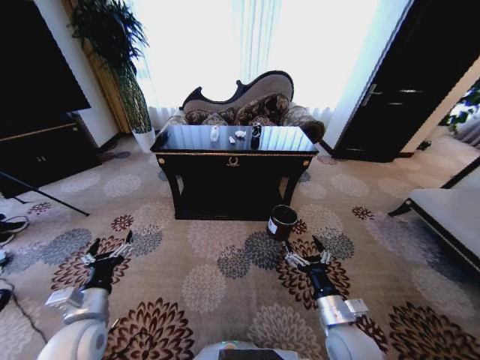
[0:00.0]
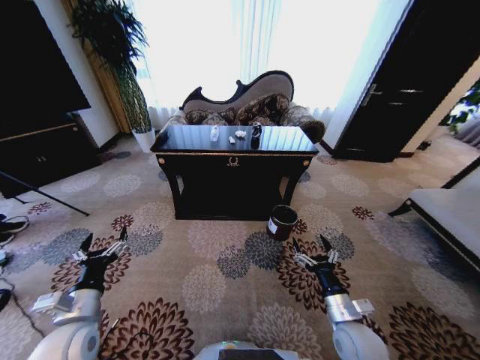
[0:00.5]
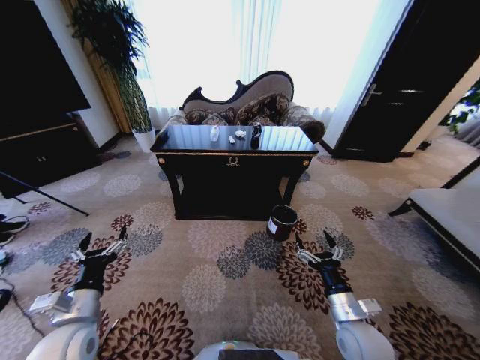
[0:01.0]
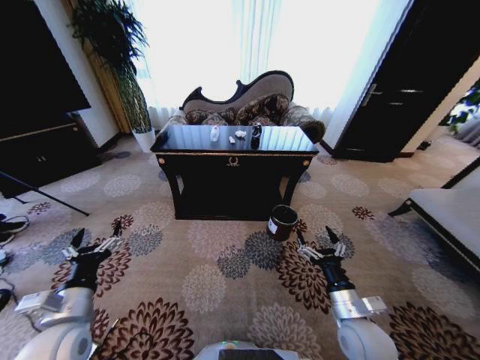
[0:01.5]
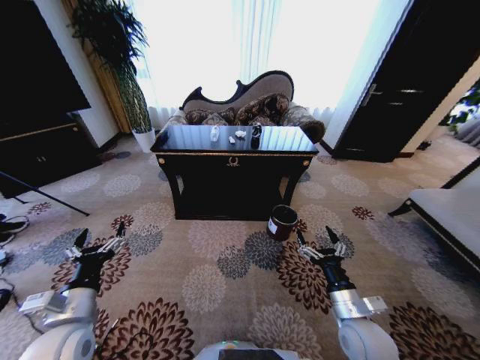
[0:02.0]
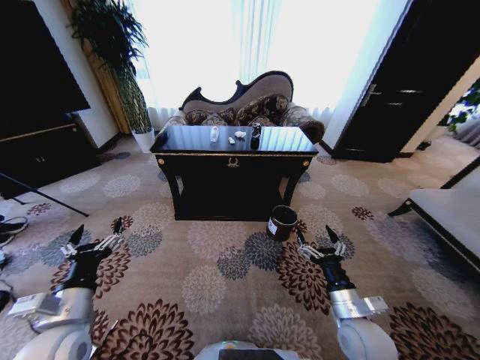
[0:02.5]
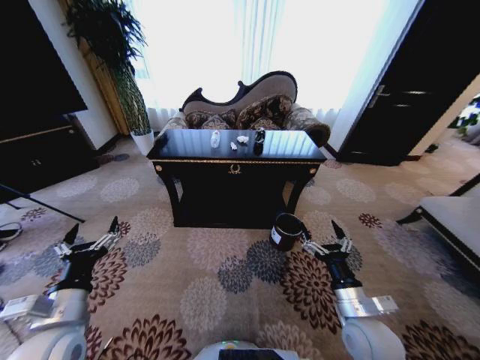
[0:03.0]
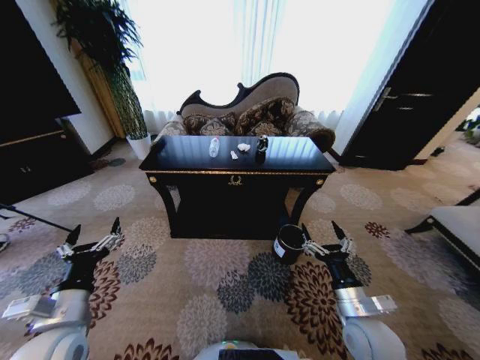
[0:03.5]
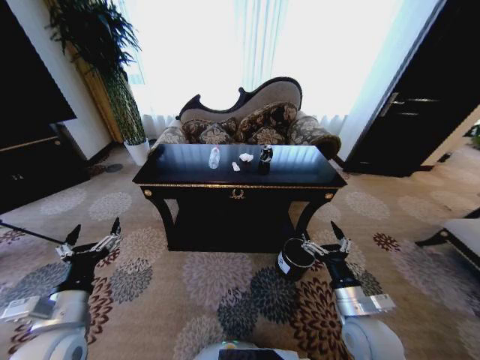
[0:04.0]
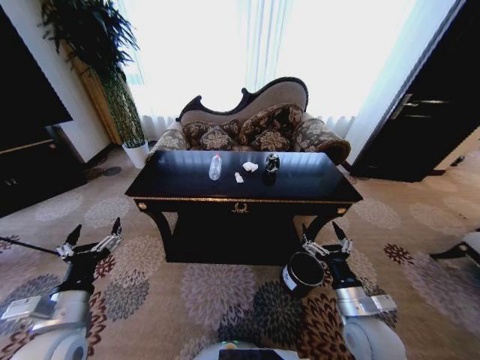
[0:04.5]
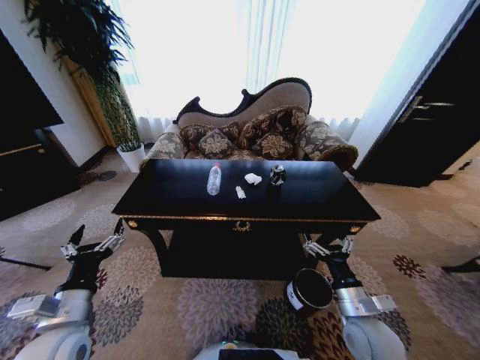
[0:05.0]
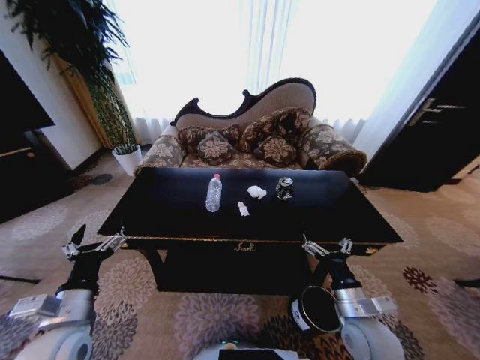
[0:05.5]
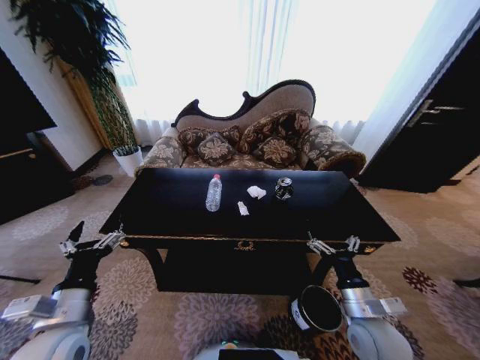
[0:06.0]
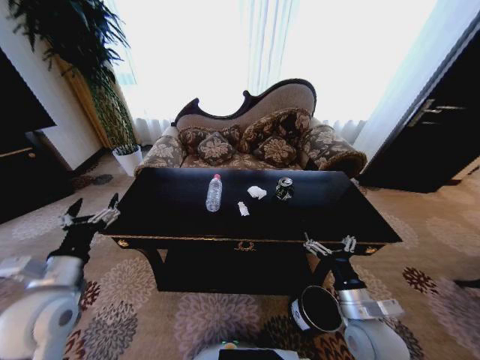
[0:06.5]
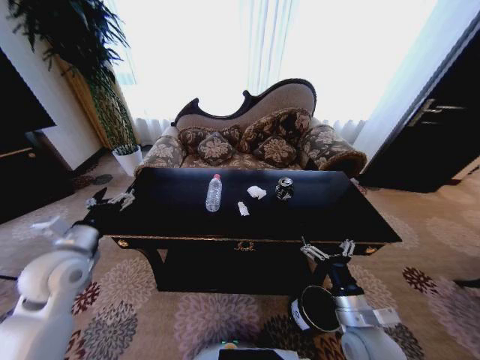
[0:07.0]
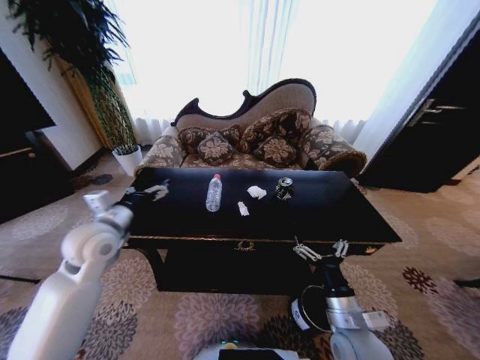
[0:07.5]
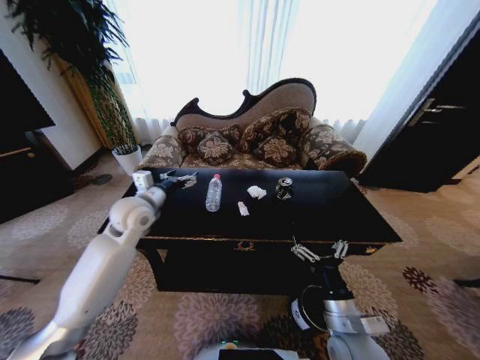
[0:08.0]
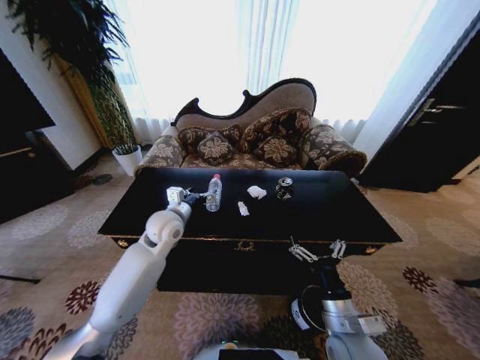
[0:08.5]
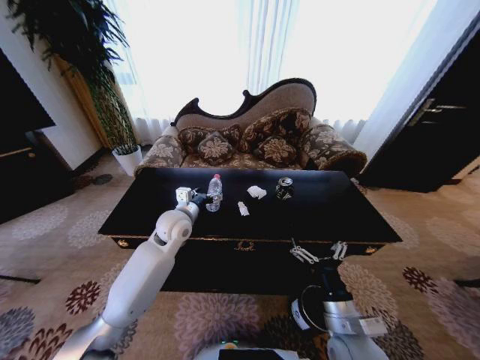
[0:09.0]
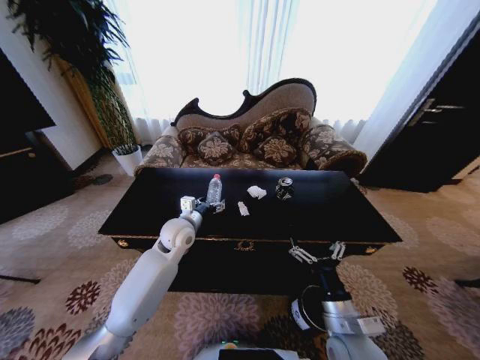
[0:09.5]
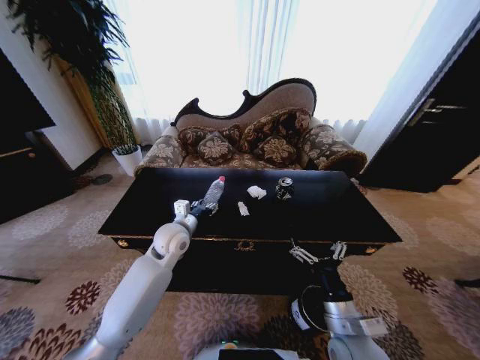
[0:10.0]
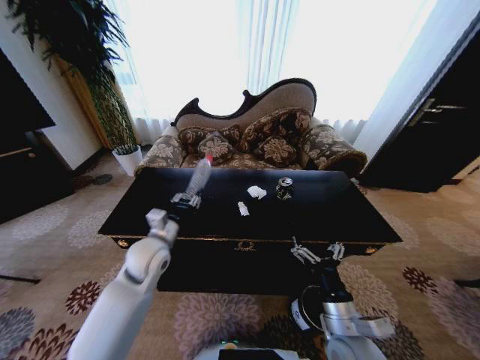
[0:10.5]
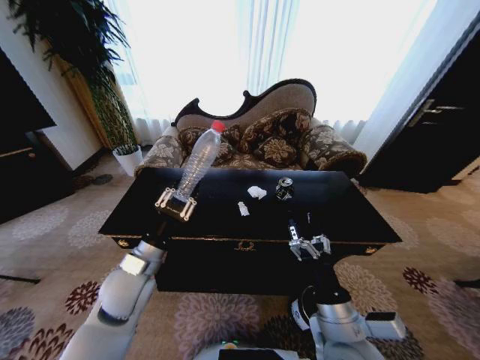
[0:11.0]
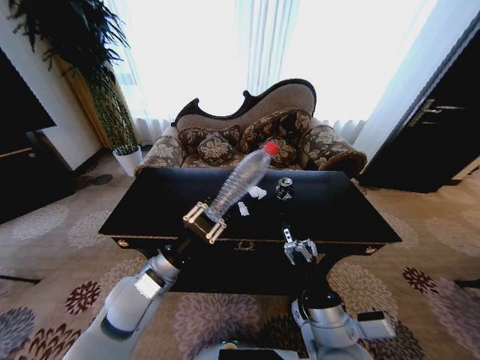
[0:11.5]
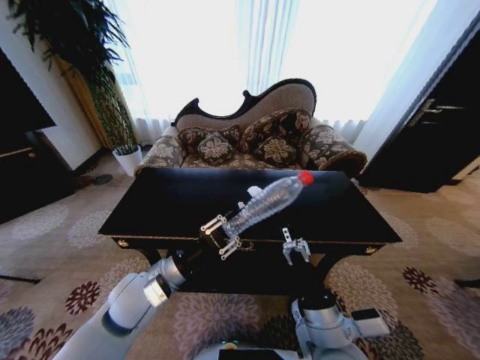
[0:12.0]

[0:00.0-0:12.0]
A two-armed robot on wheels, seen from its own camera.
Task of the whole recording: Move to the front of the table and place the trash on the table into the trash bin.
0:06.0 to 0:08.0: The right gripper moves to the left, some 5 cm, while the left gripper moves forward, approximately 25 cm.
0:08.0 to 0:10.0: The left gripper is displaced downward and to the right by roughly 15 cm, and closes its fingers.
0:10.0 to 0:12.0: The right gripper goes approximately 5 cm to the left; the left gripper heads backward, covering roughly 15 cm, and closes its fingers.

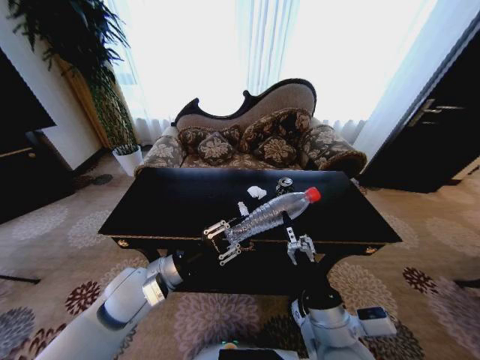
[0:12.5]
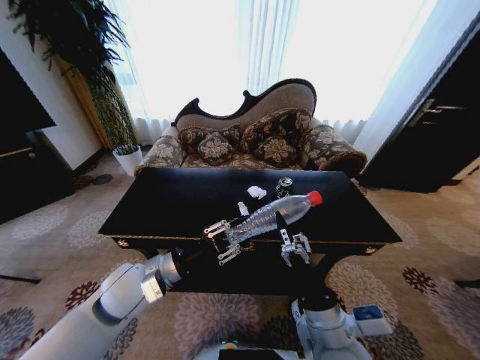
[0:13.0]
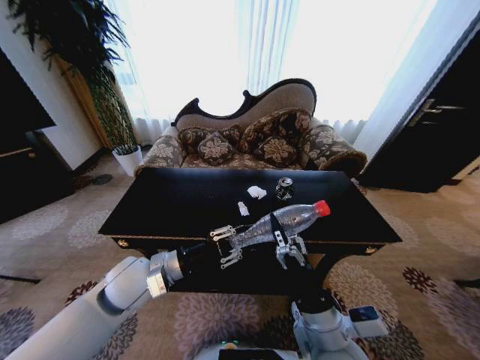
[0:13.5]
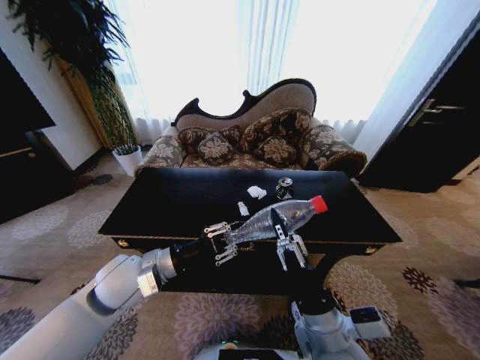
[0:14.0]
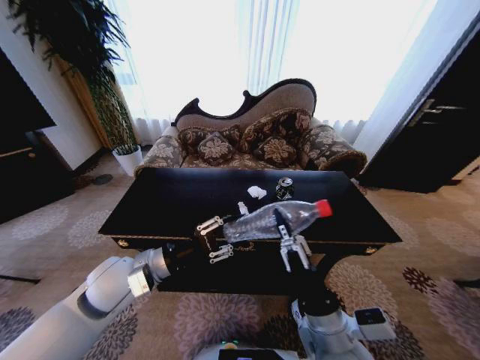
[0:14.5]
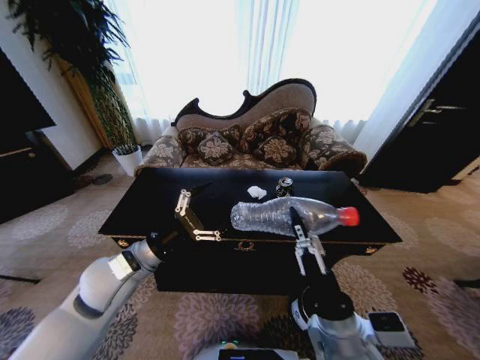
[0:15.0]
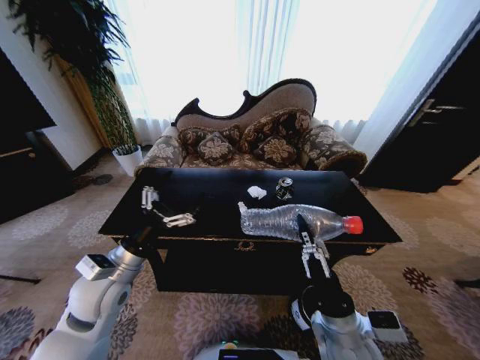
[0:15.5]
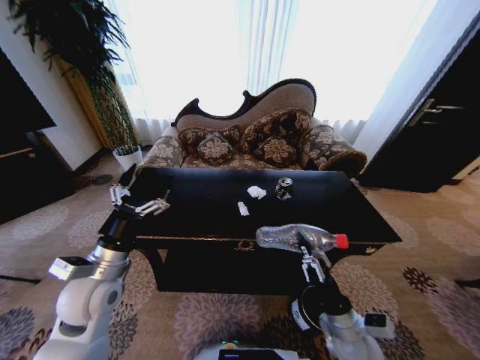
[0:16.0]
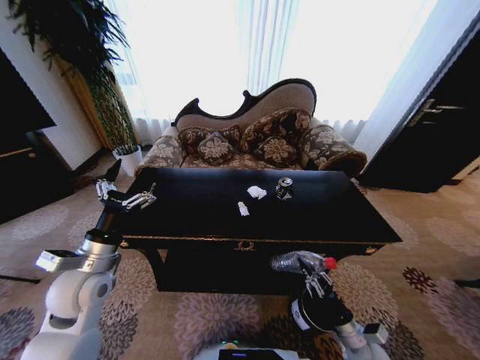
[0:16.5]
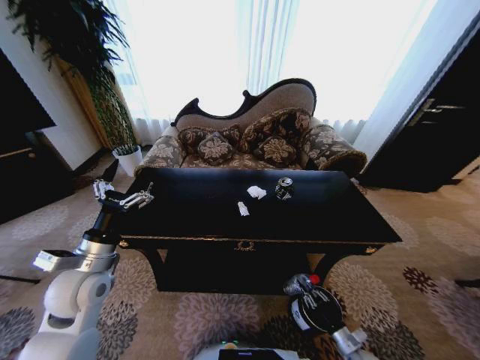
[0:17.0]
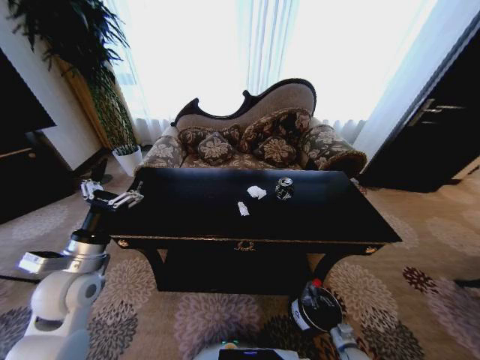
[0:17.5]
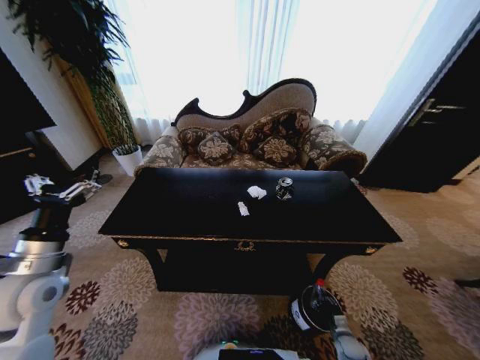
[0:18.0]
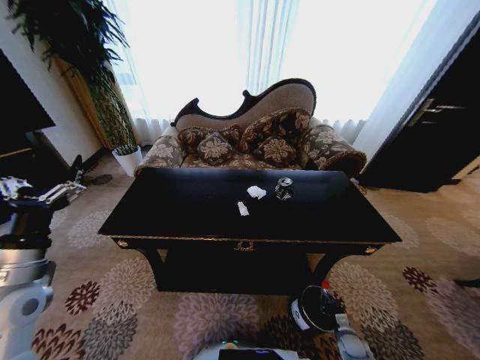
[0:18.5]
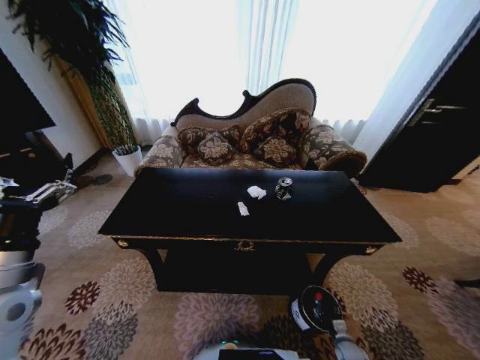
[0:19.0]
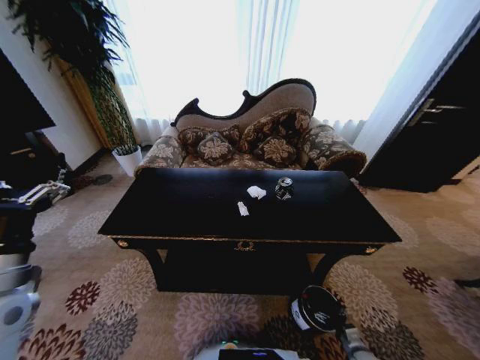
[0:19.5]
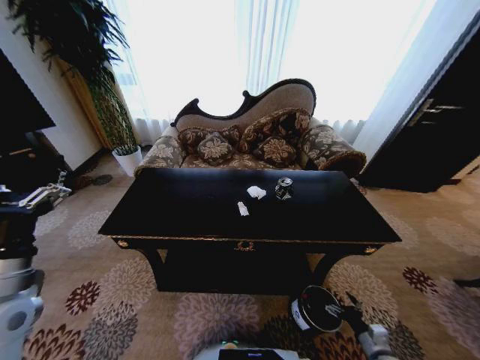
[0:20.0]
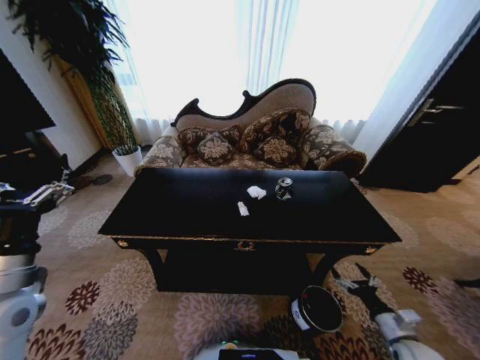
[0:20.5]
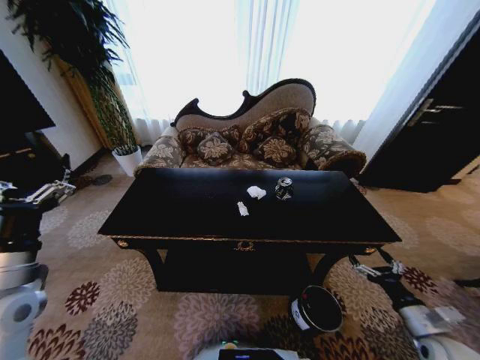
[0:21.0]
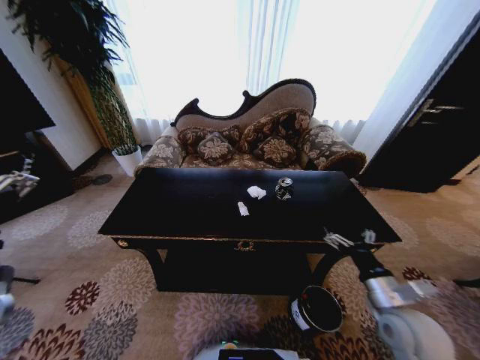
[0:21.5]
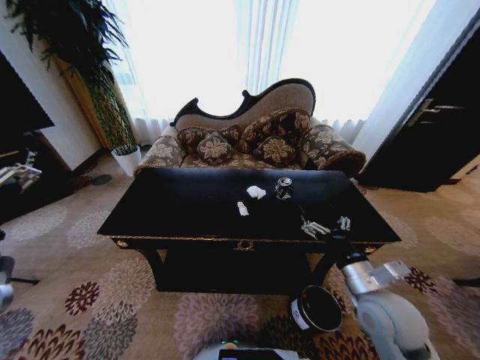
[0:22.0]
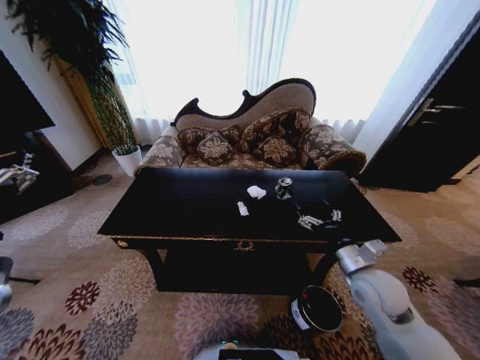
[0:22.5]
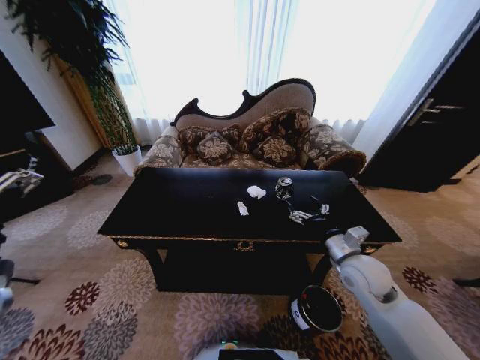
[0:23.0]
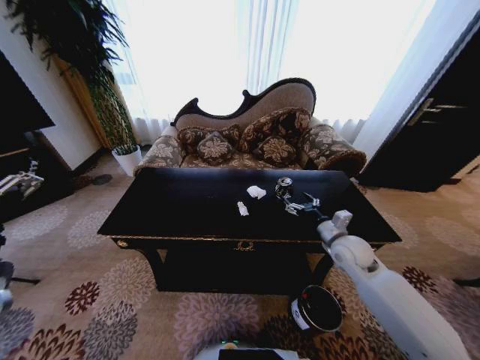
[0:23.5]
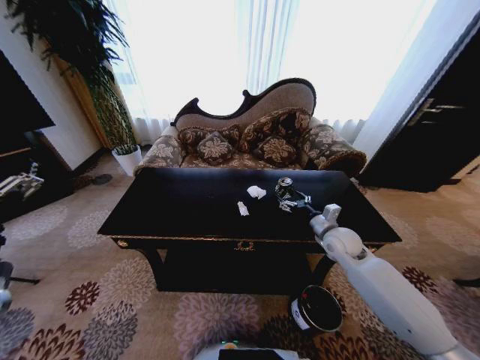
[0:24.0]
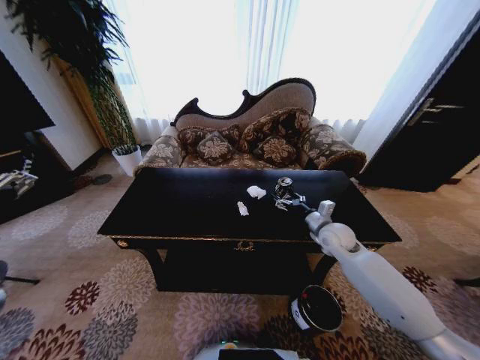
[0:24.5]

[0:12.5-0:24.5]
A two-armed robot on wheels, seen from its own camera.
Task of the whole recording: Move to the front of the table and place the trash on the table into the trash bin.
0:12.5 to 0:14.5: The right gripper closes up.
0:14.5 to 0:16.5: The left gripper shifts some 10 cm to the left, and opens up; the right gripper moves downward and to the right, some 25 cm.
0:16.5 to 0:18.5: The right gripper travels downward and to the right by approximately 20 cm. The left gripper moves to the left, about 10 cm.
0:18.5 to 0:20.5: The right gripper heads upward, covering about 25 cm, and opens up.
0:20.5 to 0:22.5: The right gripper shifts roughly 25 cm upward, to the left and forward. Meanwhile the left gripper shifts by roughly 5 cm.
0:22.5 to 0:24.5: The right gripper travels forward by some 15 cm.

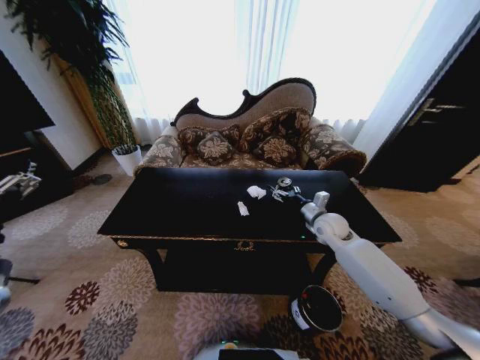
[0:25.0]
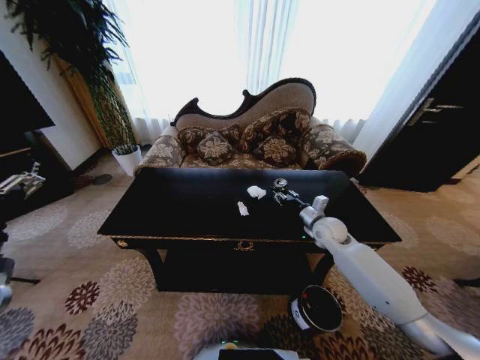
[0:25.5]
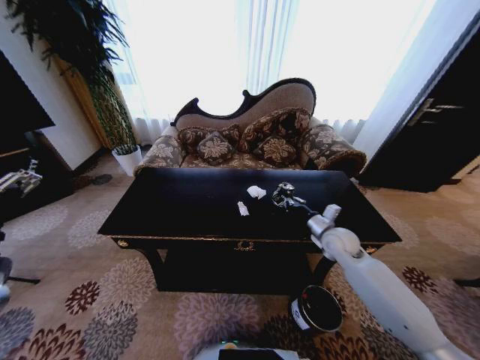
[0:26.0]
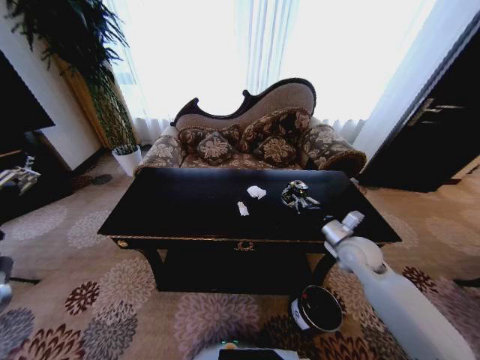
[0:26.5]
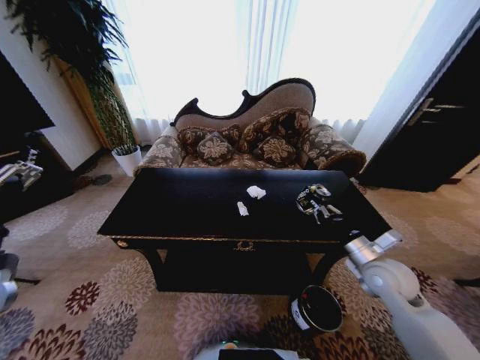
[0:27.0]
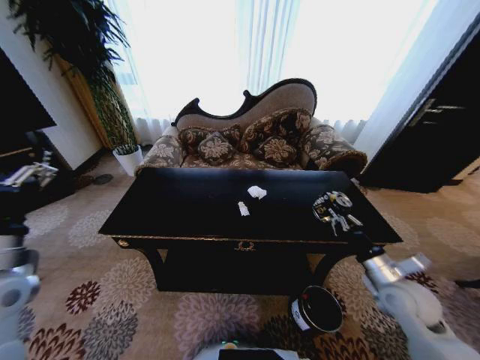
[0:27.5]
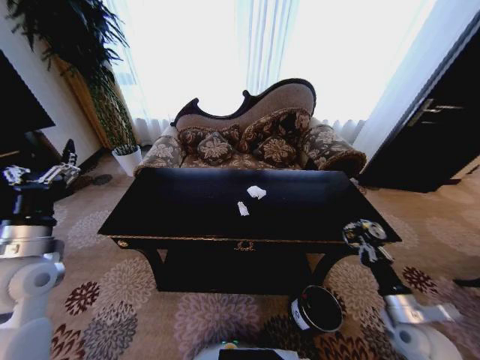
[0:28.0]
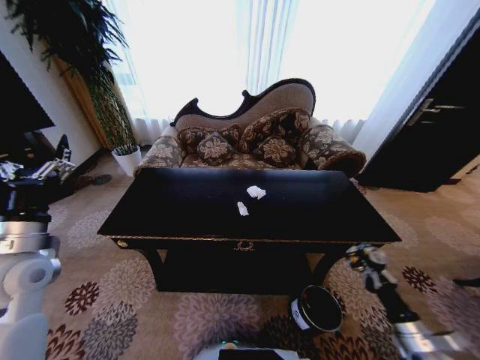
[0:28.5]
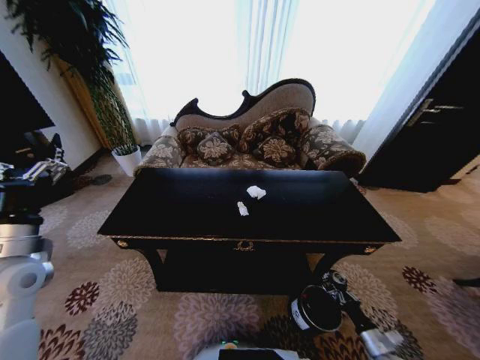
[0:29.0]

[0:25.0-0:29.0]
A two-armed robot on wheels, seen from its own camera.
Task of the whole recording: Move to the front of the table and place the trash on the table into the trash bin.
0:25.0 to 0:27.0: The right gripper heads backward, covering roughly 15 cm, and closes its fingers.
0:27.0 to 0:29.0: The left gripper shifts by approximately 5 cm; the right gripper moves downward and backward, roughly 30 cm.
